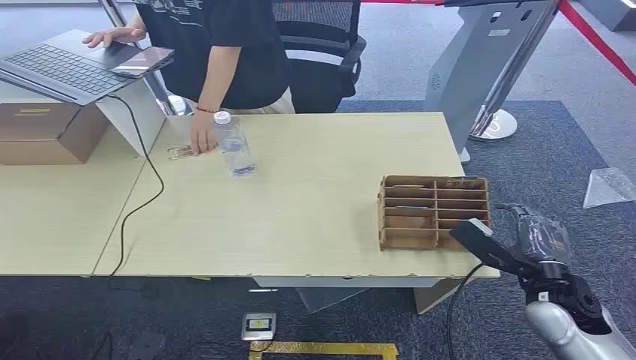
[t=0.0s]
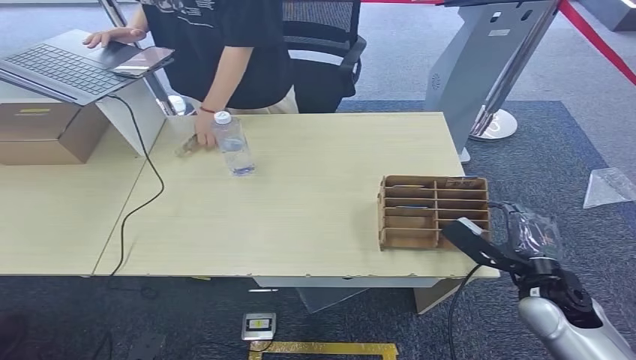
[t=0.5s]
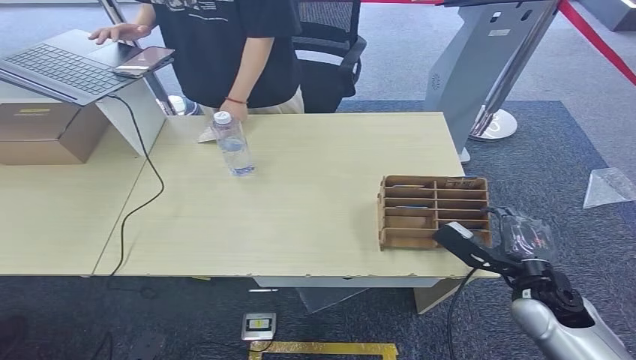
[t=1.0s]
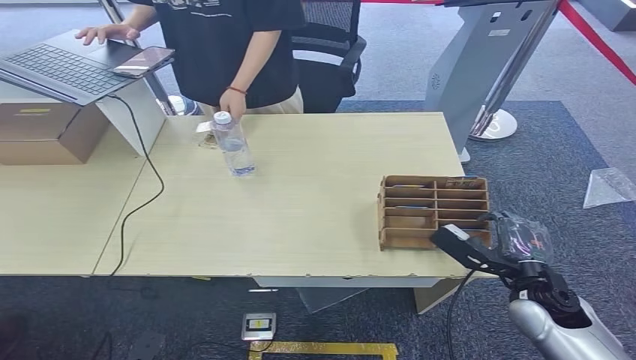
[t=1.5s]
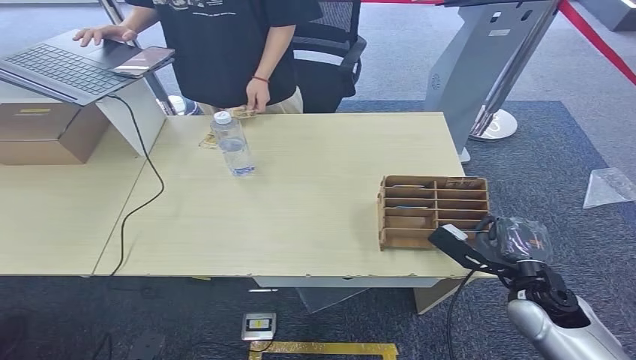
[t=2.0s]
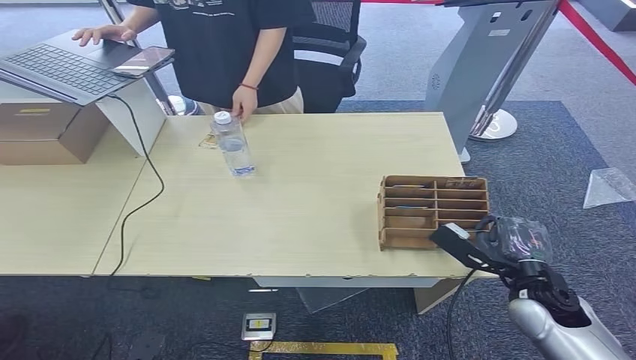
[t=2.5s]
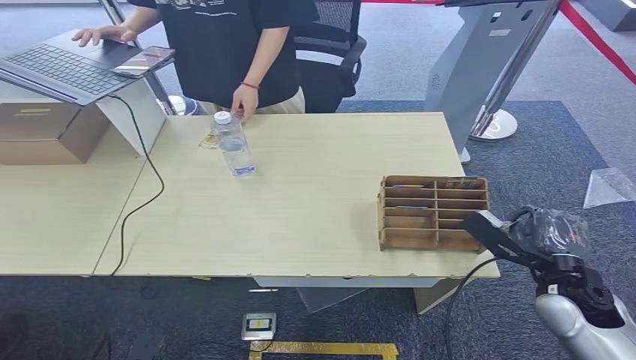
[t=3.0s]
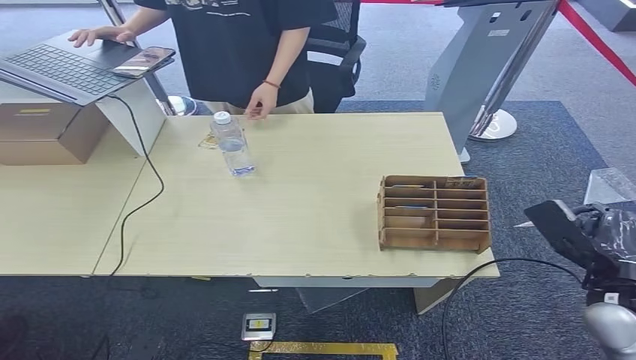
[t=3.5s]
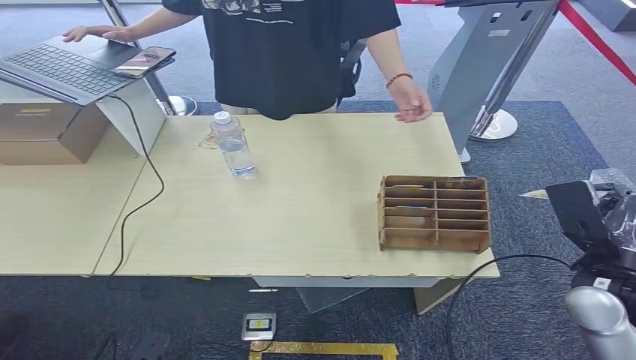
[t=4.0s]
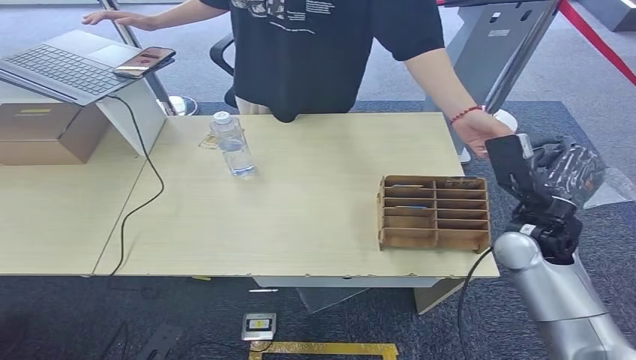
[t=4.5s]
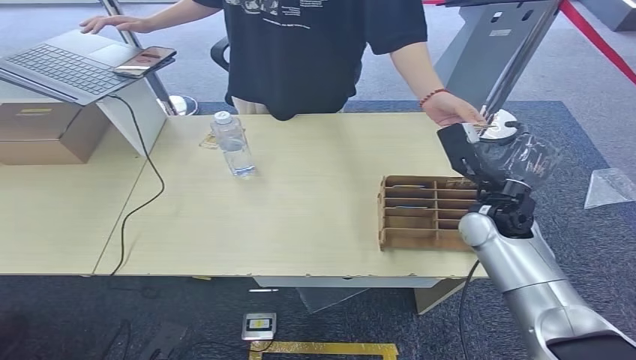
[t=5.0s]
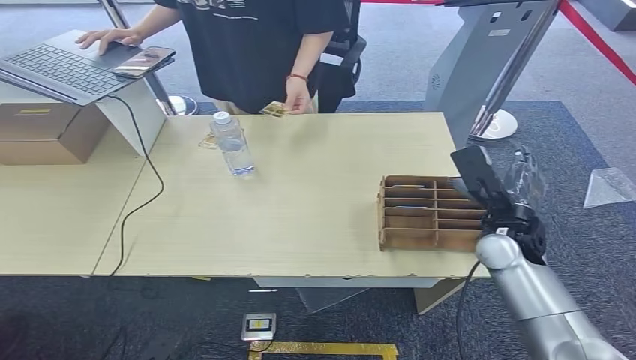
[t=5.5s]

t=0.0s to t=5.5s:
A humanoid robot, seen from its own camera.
Step, t=0.0s to t=3.0s: Pick up the room card from the card holder.
Step, t=4.0s to t=5.5s: Hand the room card to the target.
t=2.0s to t=3.5s: The right hand heads upward and to the right, covering about 10 cm.
t=3.5s to t=5.5s: The right hand goes roughly 15 cm forward and to the left.
